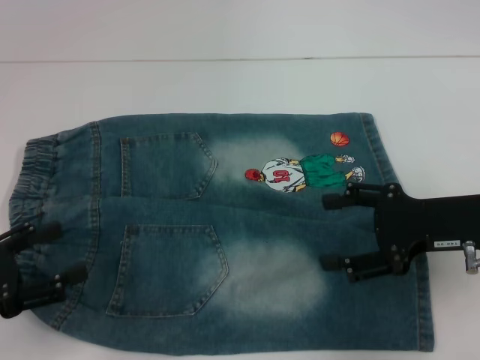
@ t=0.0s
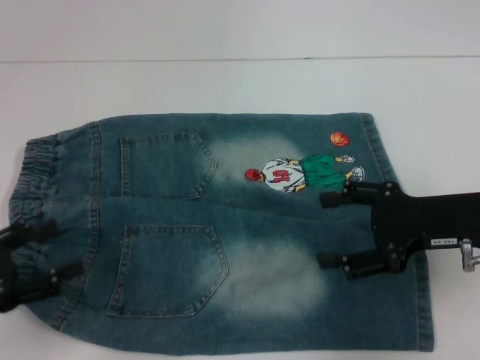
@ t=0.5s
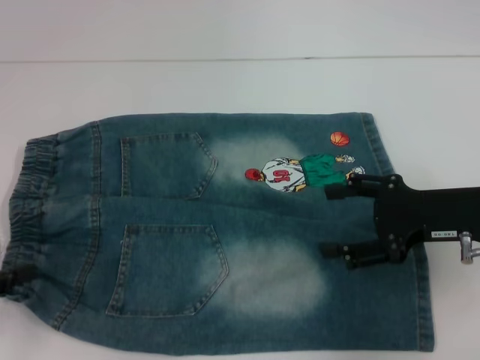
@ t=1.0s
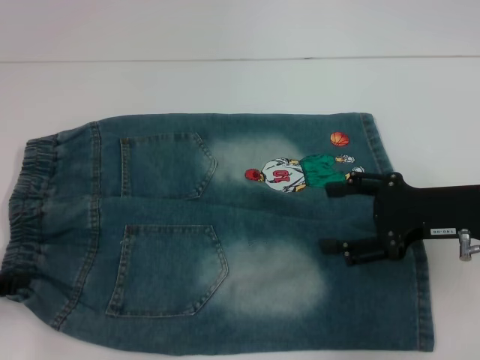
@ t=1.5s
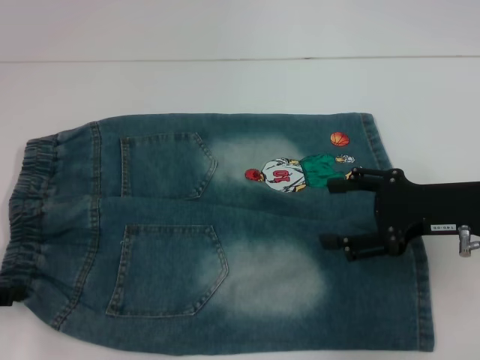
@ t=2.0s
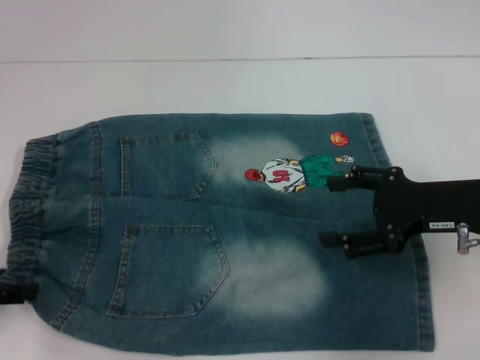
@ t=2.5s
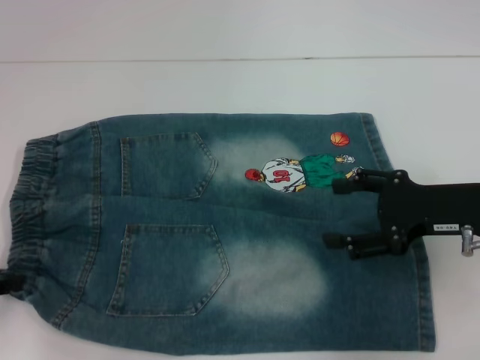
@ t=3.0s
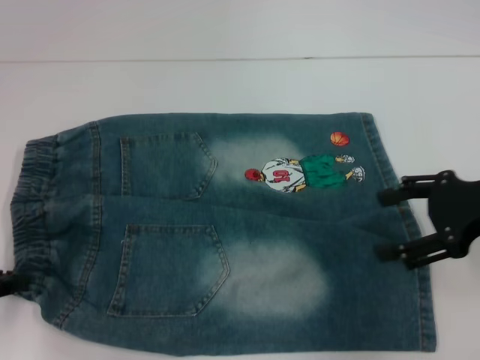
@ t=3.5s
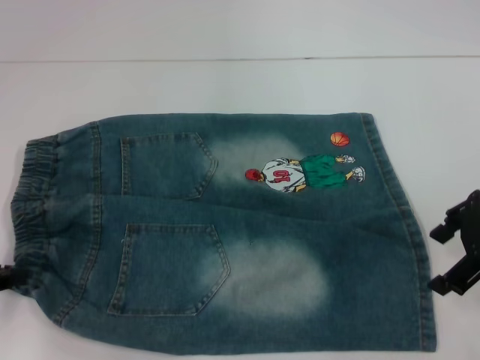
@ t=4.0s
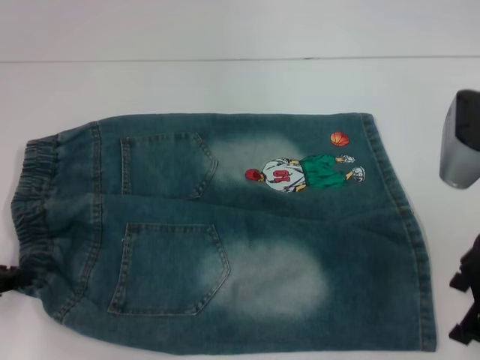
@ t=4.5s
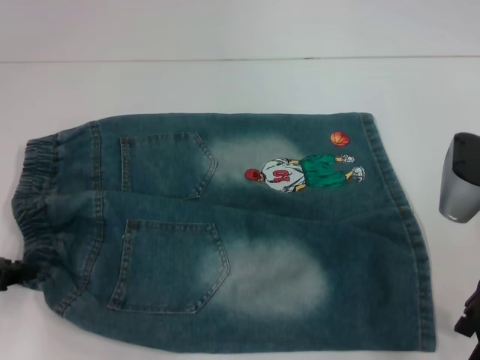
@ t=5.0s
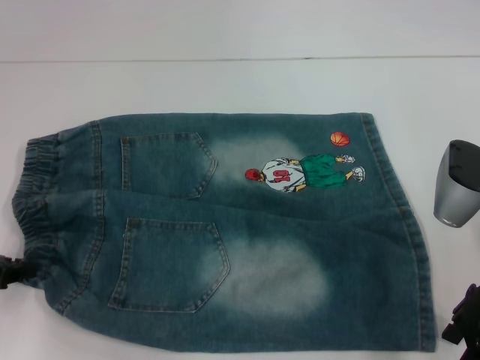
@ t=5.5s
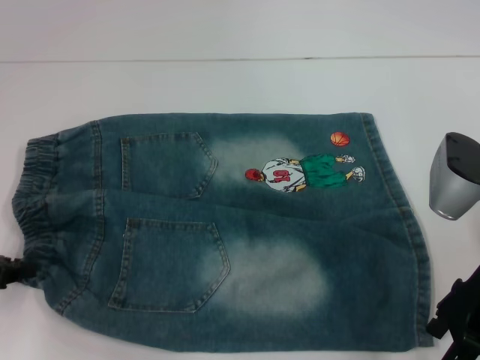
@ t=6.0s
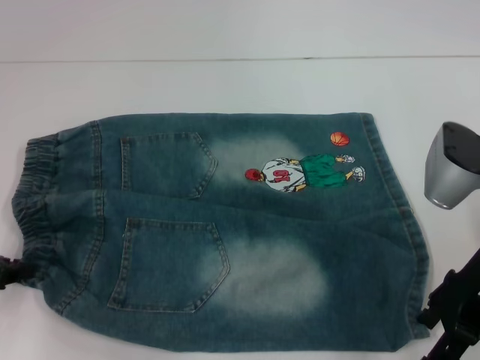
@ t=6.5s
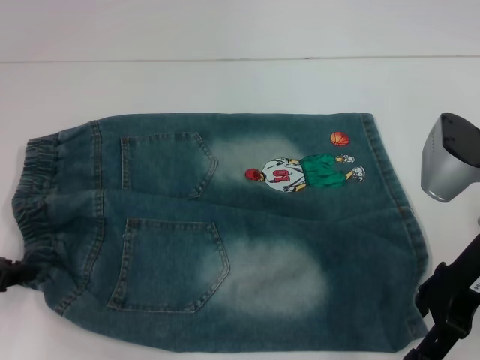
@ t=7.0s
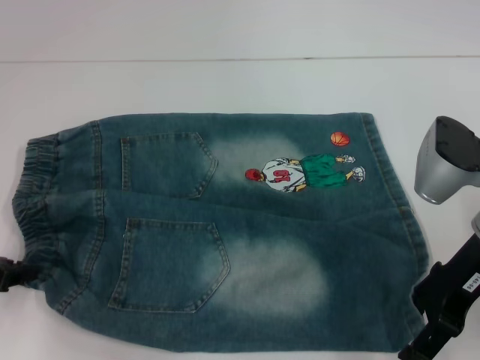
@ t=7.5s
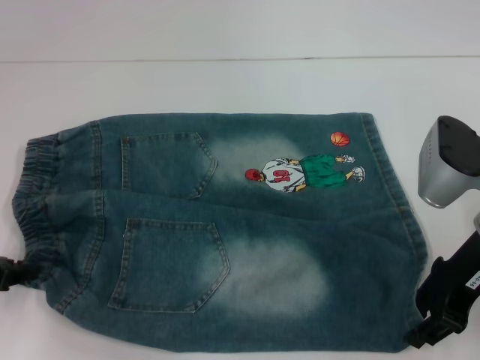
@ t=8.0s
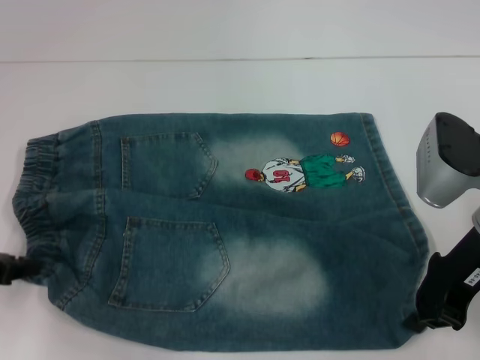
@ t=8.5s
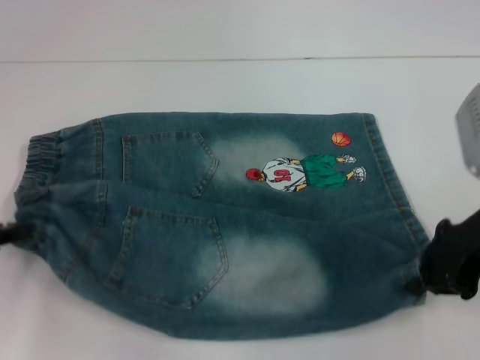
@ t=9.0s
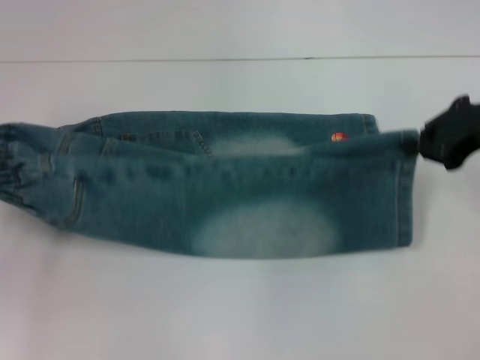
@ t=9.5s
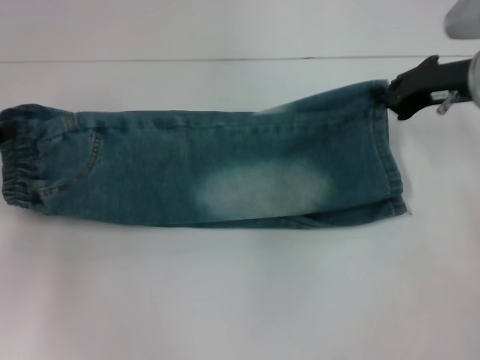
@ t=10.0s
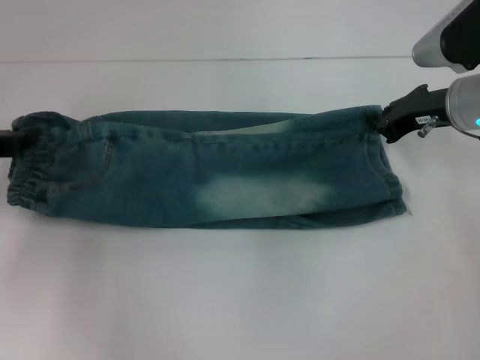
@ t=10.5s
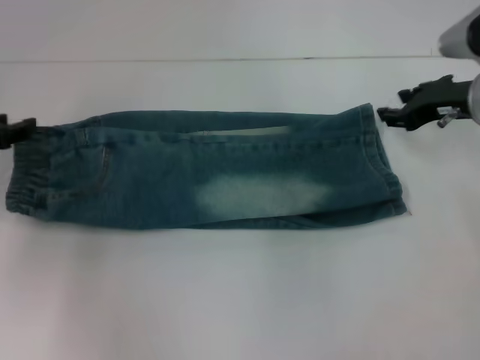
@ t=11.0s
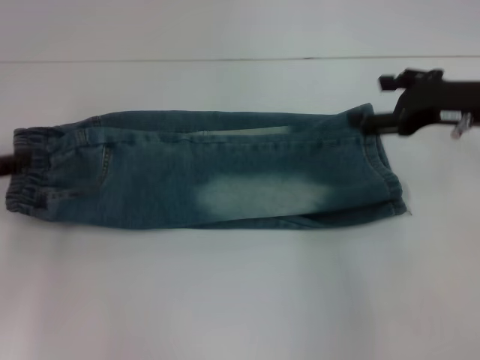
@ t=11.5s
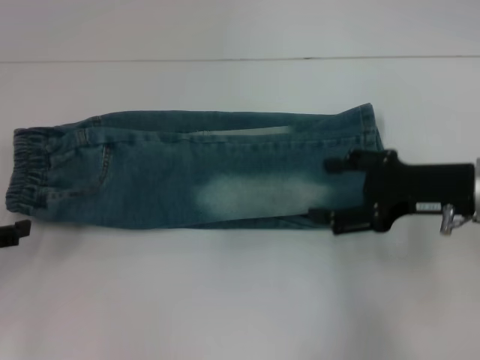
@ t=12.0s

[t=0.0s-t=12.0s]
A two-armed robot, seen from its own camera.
Step, t=0.0s to t=3.0s: Hold the lower left waistband with your left hand.
Step, t=3.5s to t=8.5s: Grab the lower right pant leg with your right hand.
Step, t=9.0s to t=11.0s: Fold upward with your right hand.
t=0.0s to t=2.0s: The left gripper shifts by approximately 5 cm.
t=2.0s to t=4.0s: The left gripper closes, while the right gripper heads upward, covering some 10 cm.
t=4.0s to t=6.0s: The right gripper shifts roughly 5 cm downward.
t=6.0s to t=8.0s: The grippers move only a little.
t=8.0s to t=10.0s: The right gripper shifts some 10 cm forward, and closes up. Meanwhile the left gripper moves forward, about 5 cm.
t=10.0s to t=12.0s: The left gripper is displaced backward by some 5 cm, and opens. Meanwhile the right gripper travels backward by roughly 10 cm, and opens up.

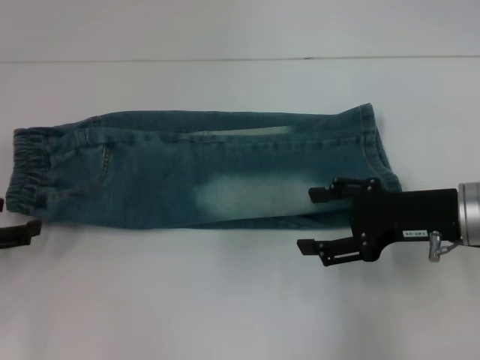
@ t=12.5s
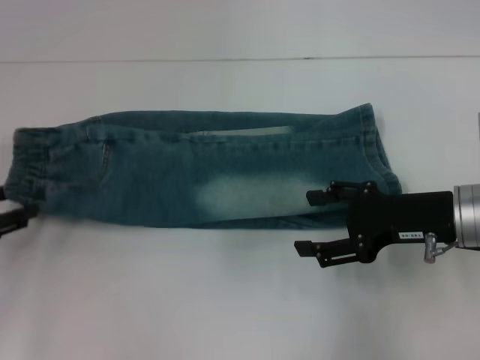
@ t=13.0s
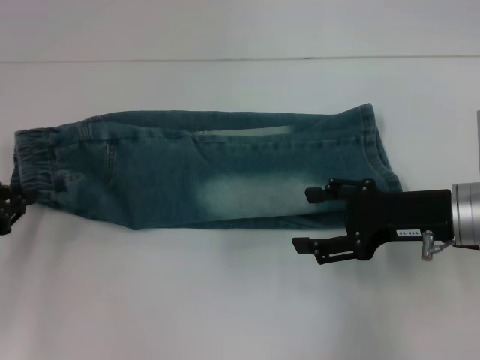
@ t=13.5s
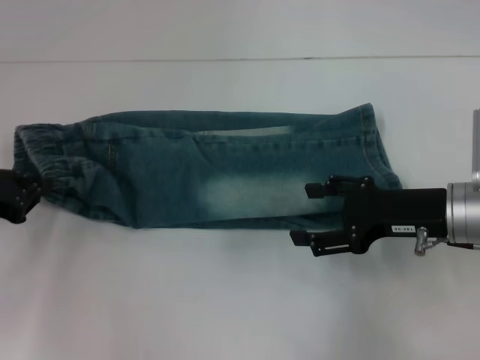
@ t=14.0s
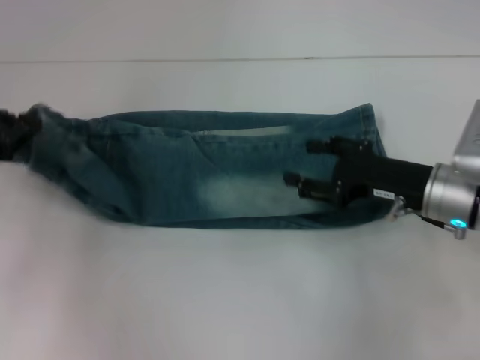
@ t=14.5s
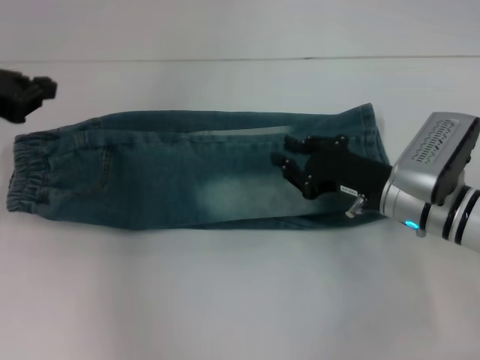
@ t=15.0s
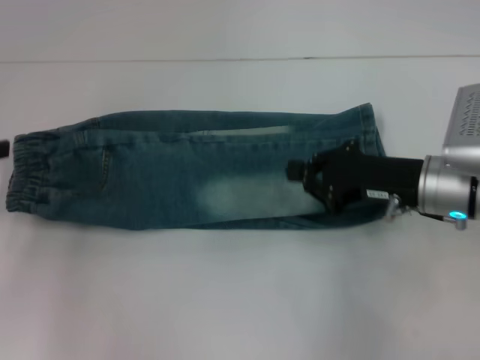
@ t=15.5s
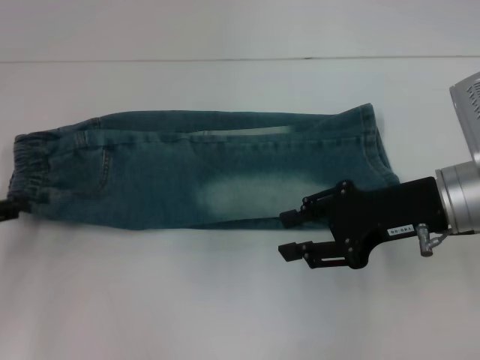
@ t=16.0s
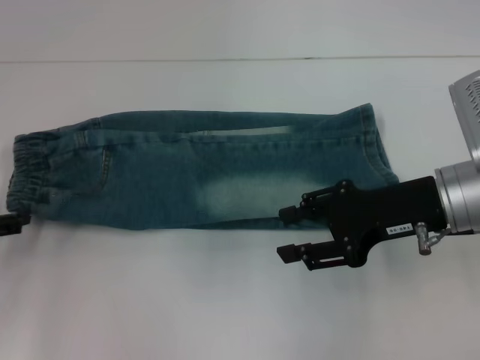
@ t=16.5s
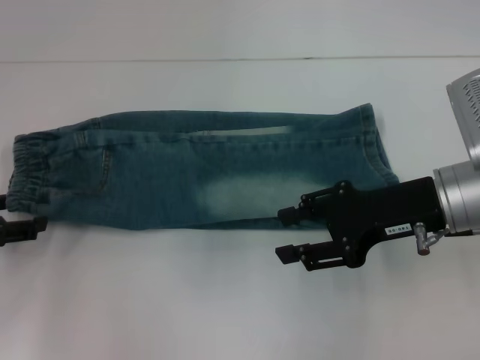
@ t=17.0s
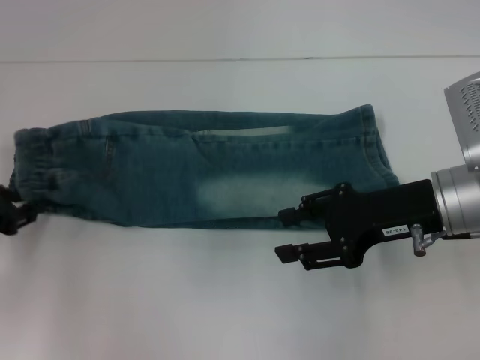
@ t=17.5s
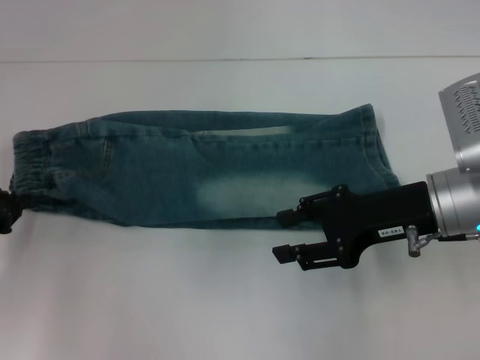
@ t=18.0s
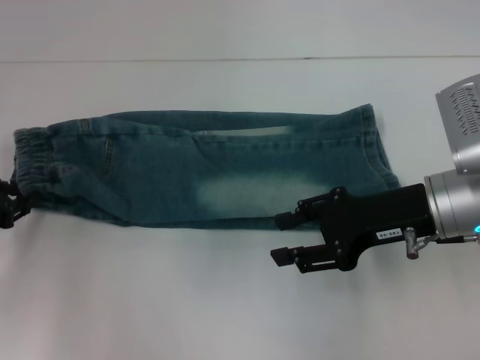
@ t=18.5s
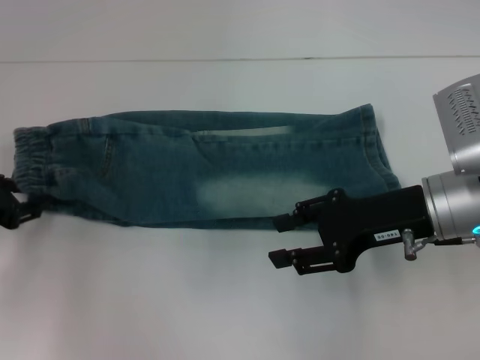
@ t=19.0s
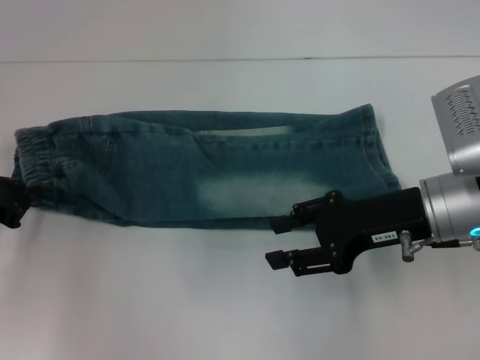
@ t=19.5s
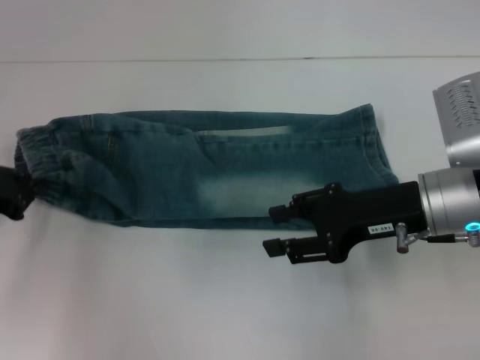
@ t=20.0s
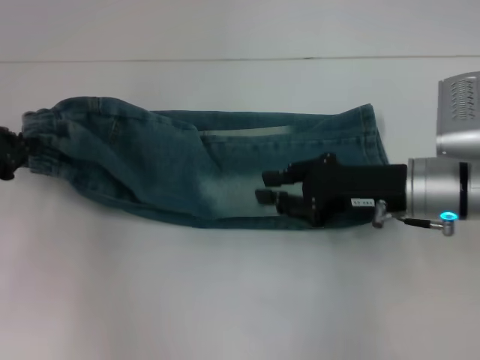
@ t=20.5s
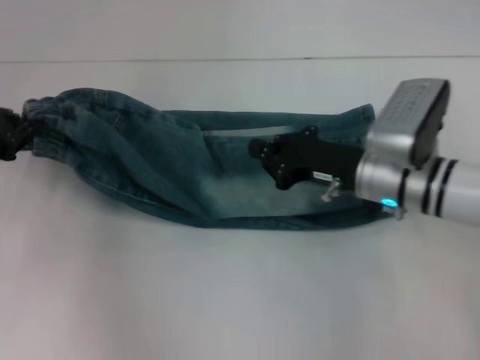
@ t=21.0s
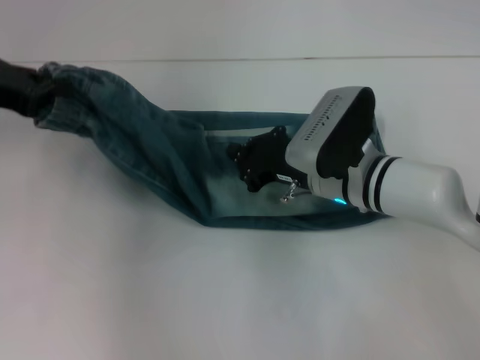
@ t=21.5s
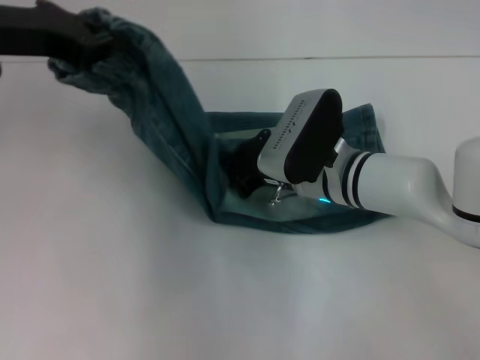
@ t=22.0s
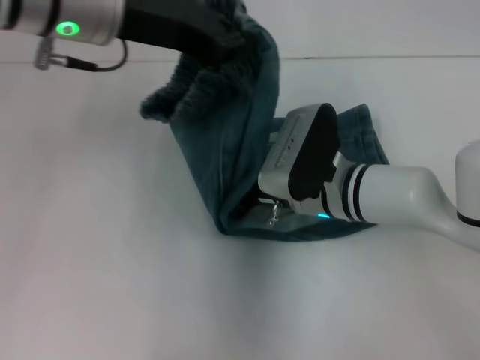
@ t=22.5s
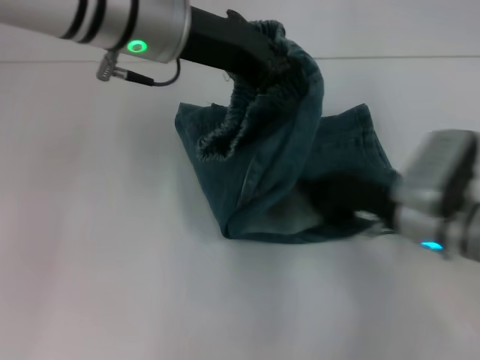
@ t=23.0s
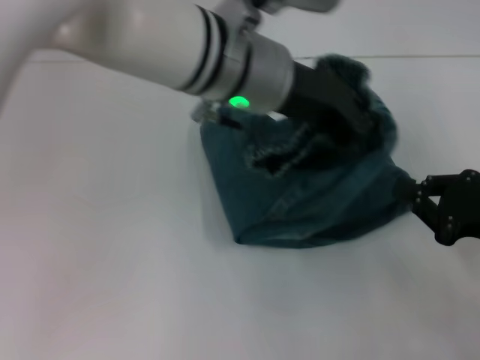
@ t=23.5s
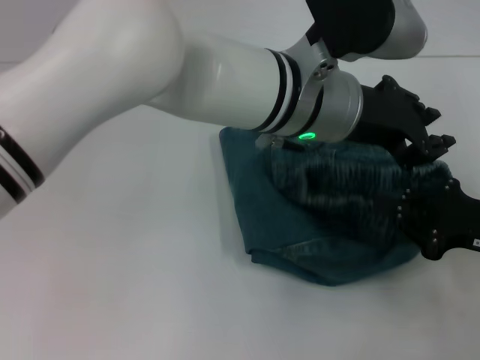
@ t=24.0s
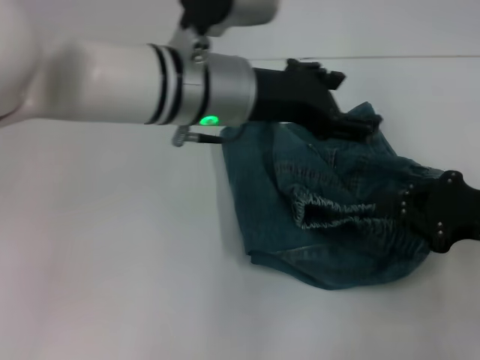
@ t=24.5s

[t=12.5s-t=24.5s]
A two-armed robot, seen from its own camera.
Step, t=12.5s to t=19.5s: Hold the waistband with your left hand.
Step, t=20.0s to t=22.5s: Press the middle of the pants with your right hand.
Step, t=23.0s to t=24.5s: Fold to the right with your left hand.
t=12.5s to t=14.5s: The left gripper moves upward and forward, roughly 10 cm, and closes up.
t=14.5s to t=16.5s: The right gripper is displaced upward by approximately 5 cm, and closes and opens again. The left gripper travels downward and backward by roughly 10 cm, and opens its fingers.
t=16.5s to t=18.5s: The left gripper closes its fingers.
t=18.5s to t=20.5s: The left gripper changes place by about 5 cm, and opens and closes again.
t=20.5s to t=22.5s: The left gripper goes roughly 25 cm to the right and upward. The right gripper heads to the left, covering roughly 10 cm, and closes up.
t=22.5s to t=24.5s: The right gripper shifts about 20 cm to the right and backward; the left gripper moves to the right and downward, approximately 10 cm, and opens.

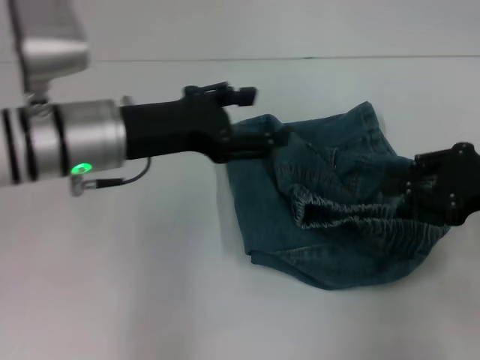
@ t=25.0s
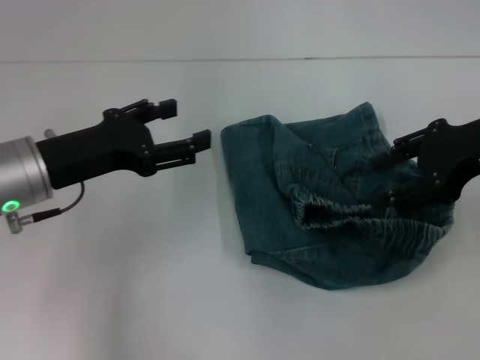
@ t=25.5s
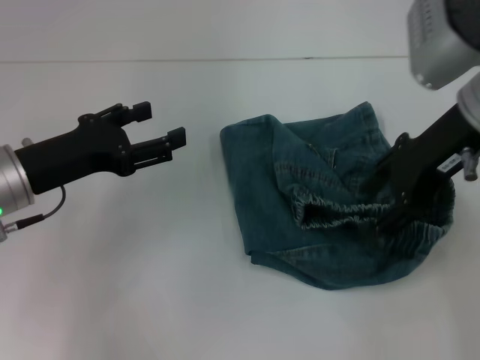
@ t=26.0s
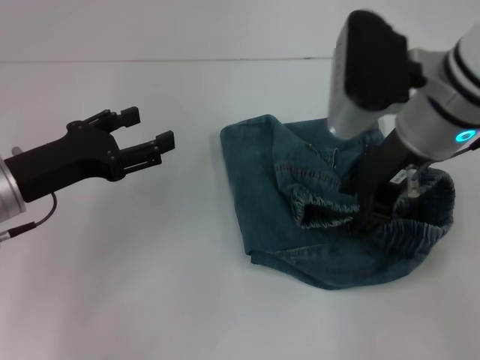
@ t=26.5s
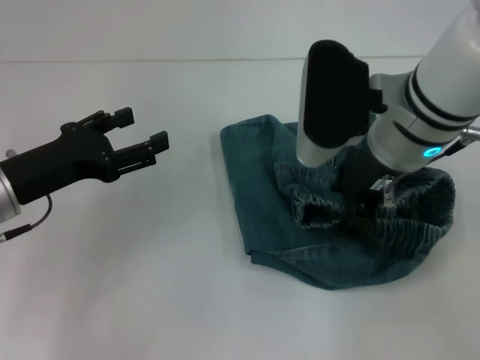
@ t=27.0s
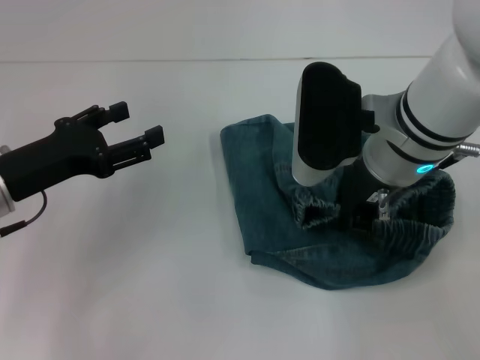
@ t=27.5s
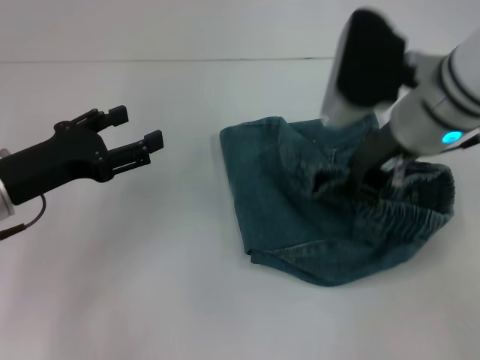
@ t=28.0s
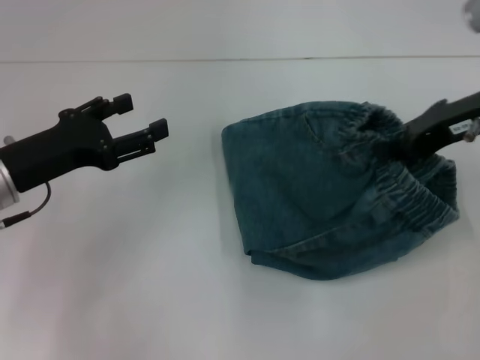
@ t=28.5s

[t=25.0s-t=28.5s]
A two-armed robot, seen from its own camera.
t=25.0s to t=27.0s: The left gripper moves to the left and downward, some 10 cm. The right gripper shifts roughly 20 cm to the left, and opens.
t=27.0s to t=28.5s: The right gripper shifts some 10 cm to the right, and closes up.
